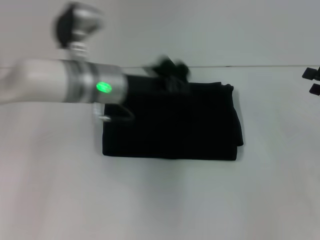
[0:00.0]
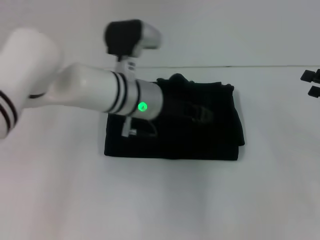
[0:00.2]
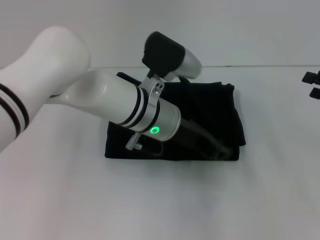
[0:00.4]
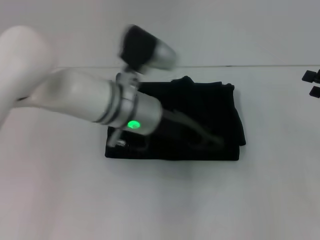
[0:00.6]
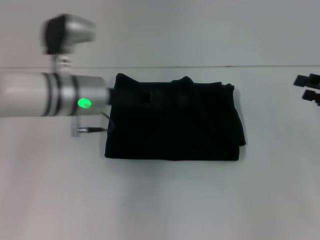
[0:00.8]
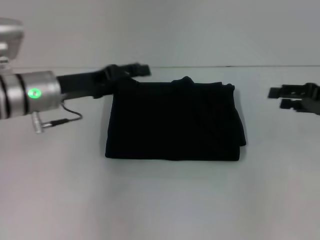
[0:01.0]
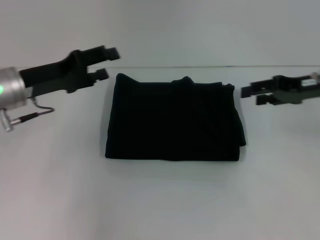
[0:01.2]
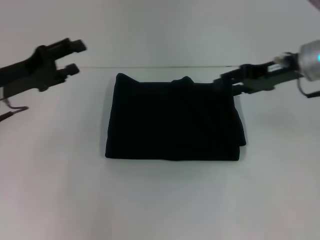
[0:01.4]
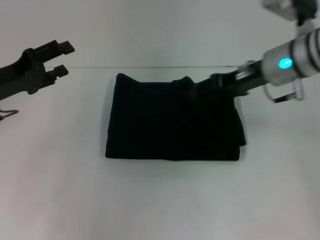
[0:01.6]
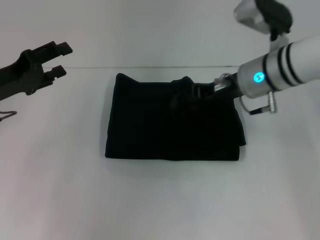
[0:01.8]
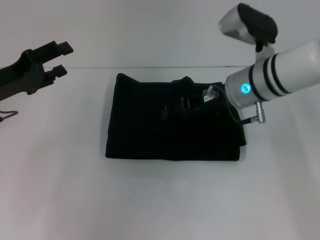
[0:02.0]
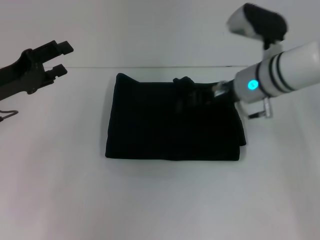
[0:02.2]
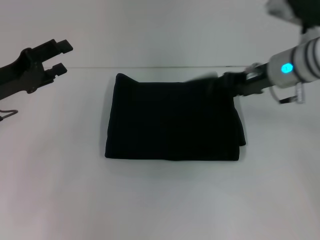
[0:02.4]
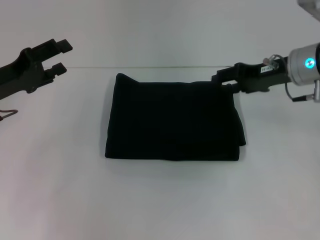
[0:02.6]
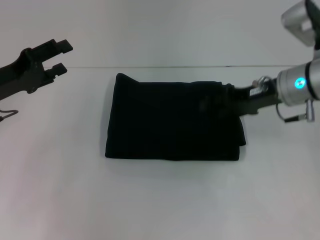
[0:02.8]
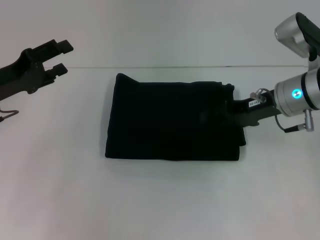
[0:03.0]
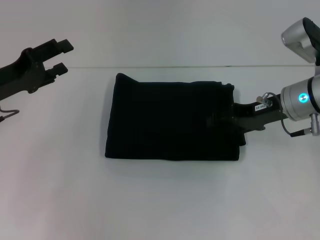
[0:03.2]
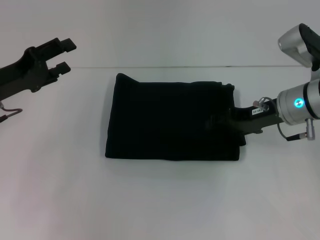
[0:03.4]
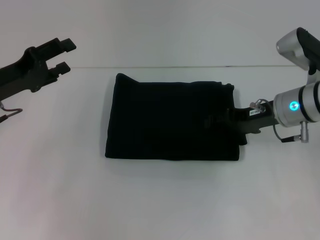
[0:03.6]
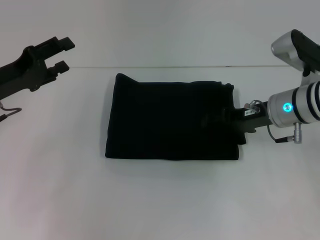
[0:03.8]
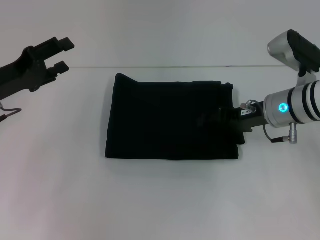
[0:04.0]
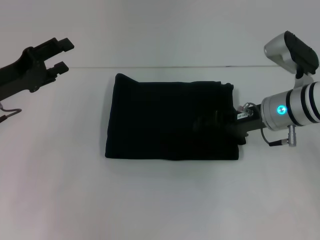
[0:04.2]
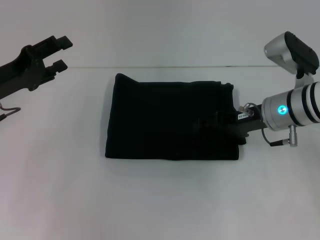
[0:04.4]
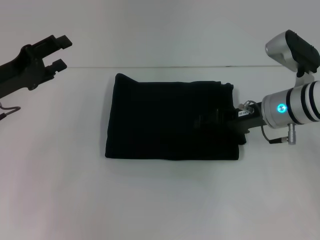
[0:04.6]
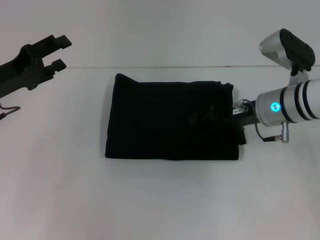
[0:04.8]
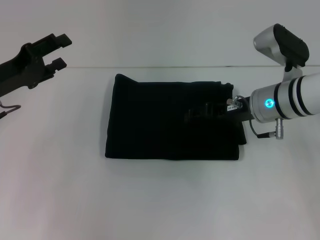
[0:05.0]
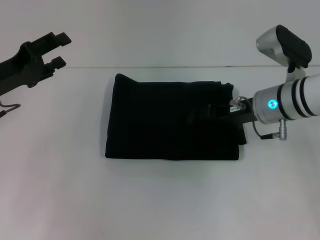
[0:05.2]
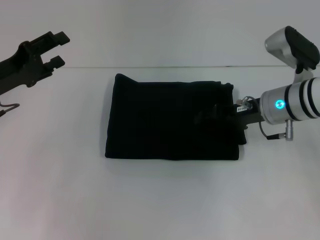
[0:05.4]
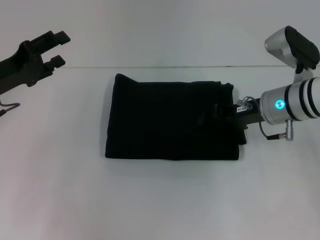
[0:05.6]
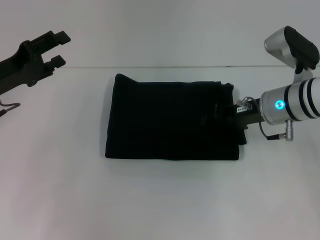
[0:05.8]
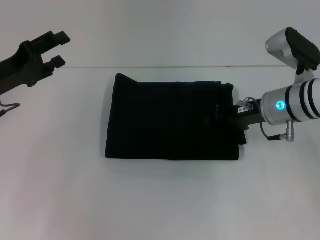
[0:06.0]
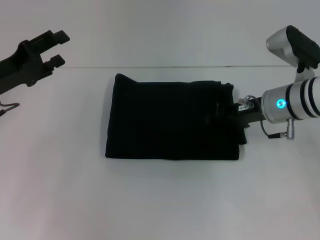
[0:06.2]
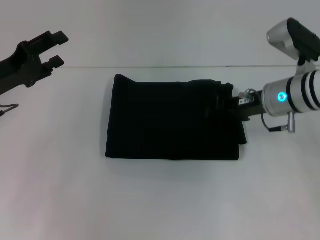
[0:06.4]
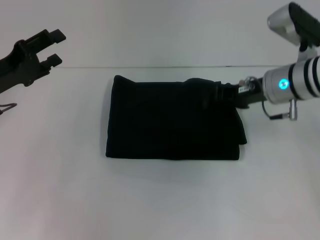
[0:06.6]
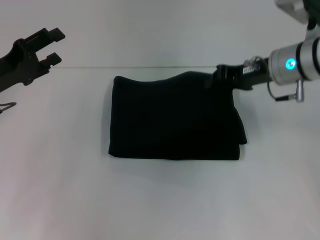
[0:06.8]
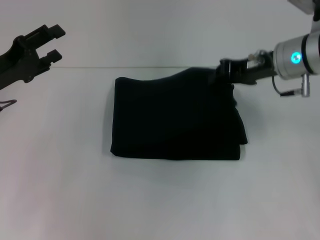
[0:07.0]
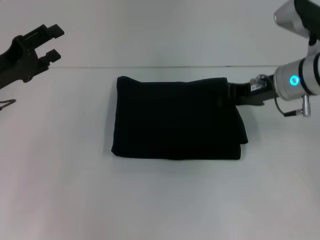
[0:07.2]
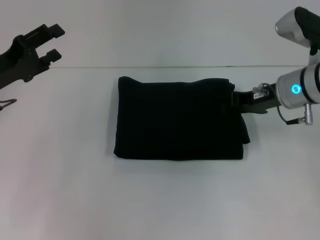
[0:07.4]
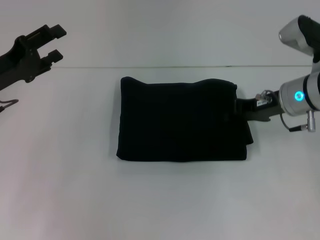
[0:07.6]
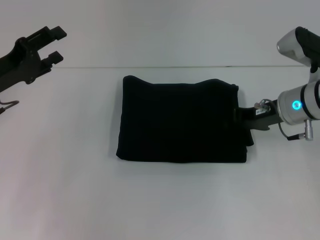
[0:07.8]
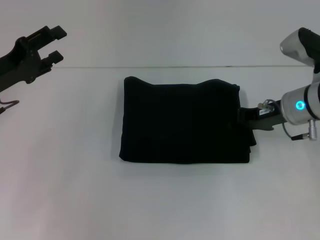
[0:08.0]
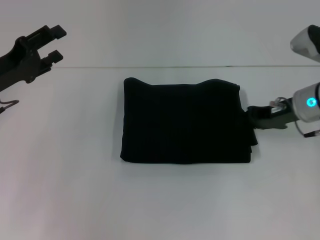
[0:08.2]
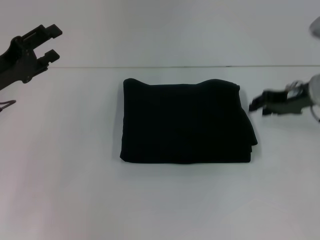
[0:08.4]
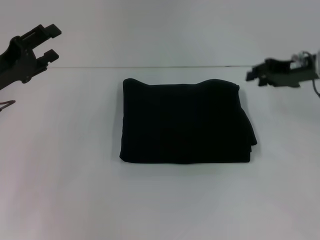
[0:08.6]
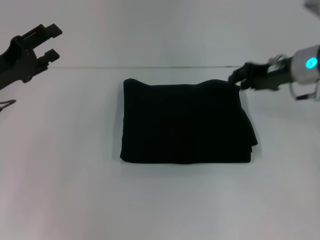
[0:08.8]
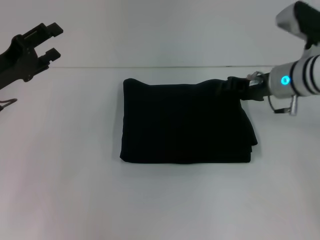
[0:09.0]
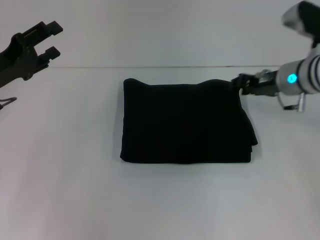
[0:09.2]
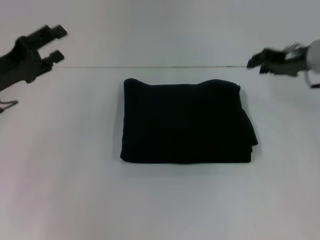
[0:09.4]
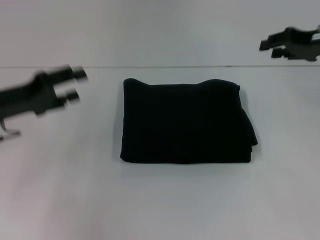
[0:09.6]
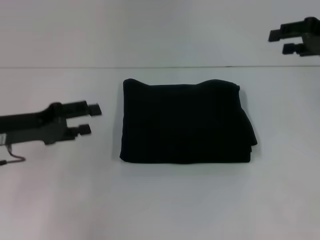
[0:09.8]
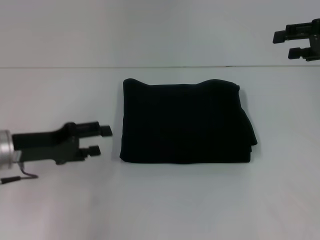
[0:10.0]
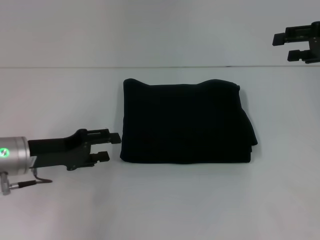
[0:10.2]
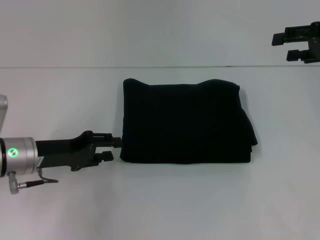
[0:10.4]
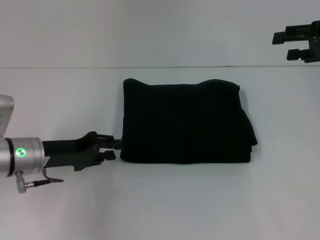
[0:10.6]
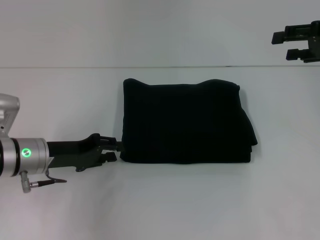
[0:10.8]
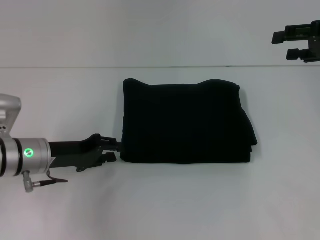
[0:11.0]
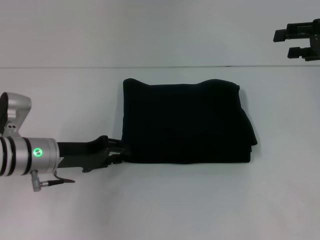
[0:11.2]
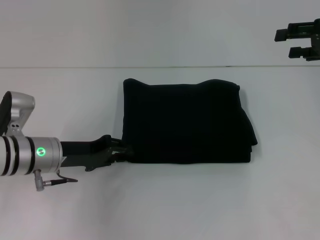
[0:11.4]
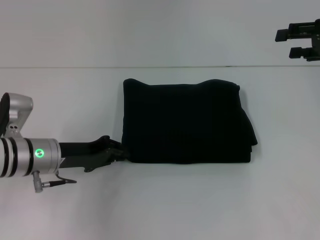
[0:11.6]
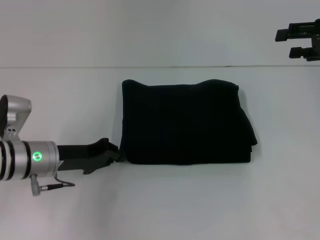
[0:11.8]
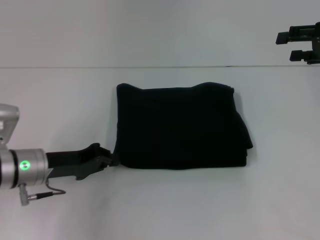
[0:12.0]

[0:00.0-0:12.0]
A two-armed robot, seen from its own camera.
0:00.0 to 0:01.6: The left gripper goes approximately 20 cm to the left, and opens up; the right gripper goes about 20 cm to the left and forward.
0:01.6 to 0:03.0: The right gripper moves approximately 5 cm to the left and comes back.
0:03.0 to 0:04.4: The grippers make only small movements.
0:04.4 to 0:06.0: The right gripper closes up.
0:07.6 to 0:09.0: The right gripper opens up.
0:09.0 to 0:10.4: The left gripper heads downward and to the right, covering roughly 10 cm; the right gripper travels to the right and upward by about 15 cm, and opens its fingers.
0:10.4 to 0:12.0: The left gripper closes.

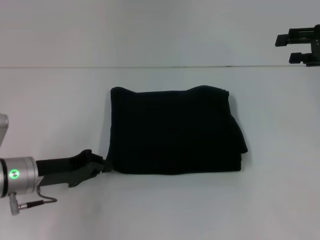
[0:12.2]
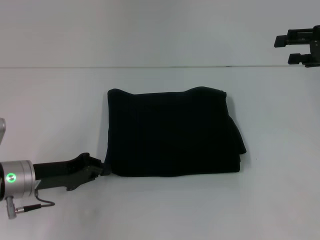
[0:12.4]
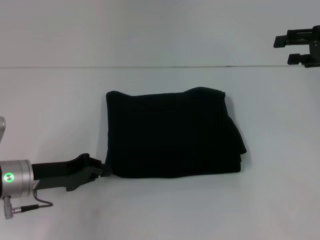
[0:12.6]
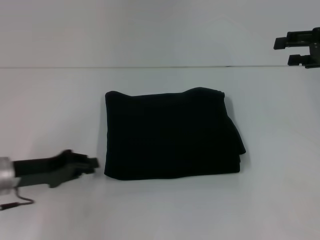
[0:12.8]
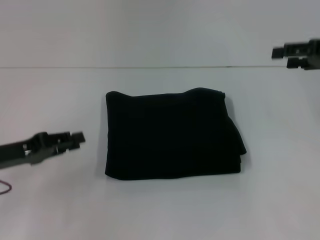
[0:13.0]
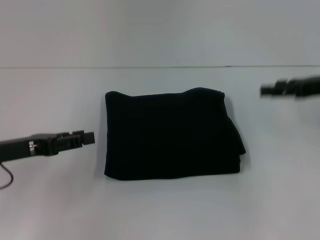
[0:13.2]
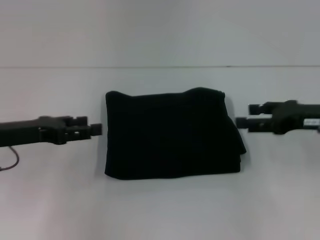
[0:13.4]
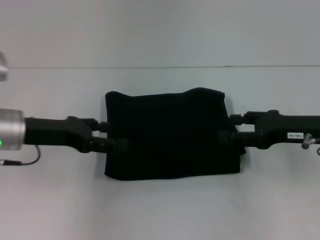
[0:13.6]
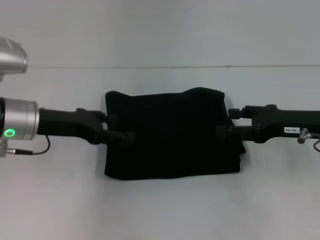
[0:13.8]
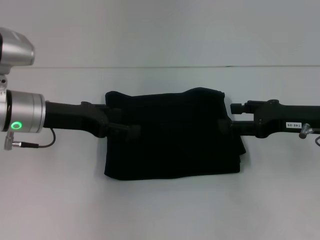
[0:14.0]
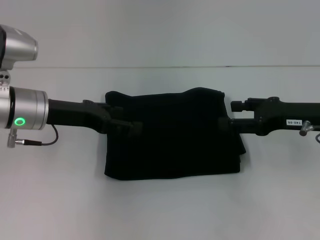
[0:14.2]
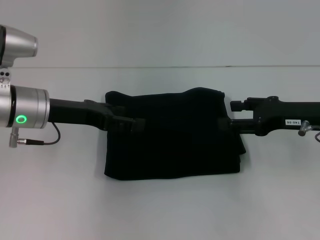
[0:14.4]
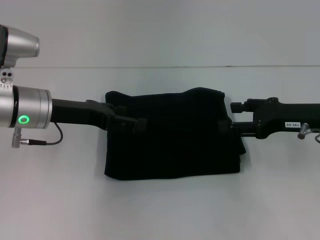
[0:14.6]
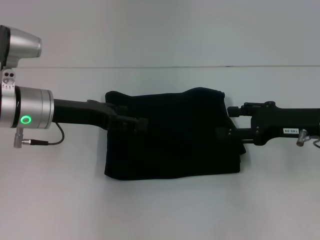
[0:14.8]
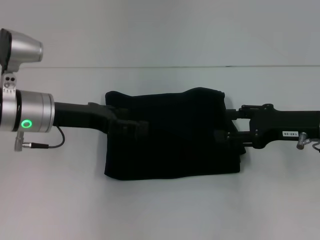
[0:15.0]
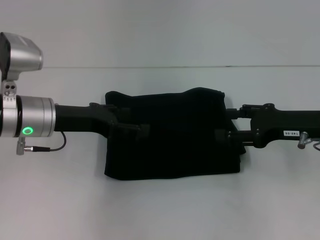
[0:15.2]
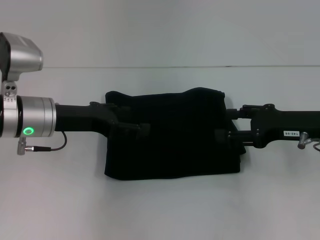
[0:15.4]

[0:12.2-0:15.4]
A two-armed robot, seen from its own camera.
0:12.2 to 0:13.8: The right gripper goes some 15 cm downward, to the left and backward. The left gripper shifts roughly 10 cm upward, and opens.
0:13.8 to 0:15.4: The grippers stay close to where they were, moving slightly.

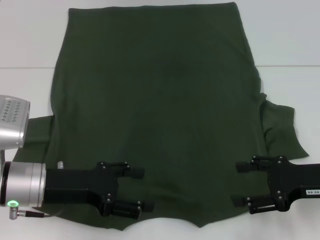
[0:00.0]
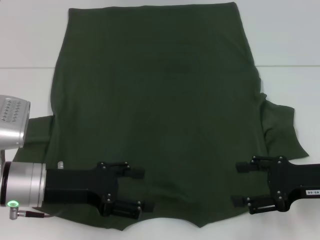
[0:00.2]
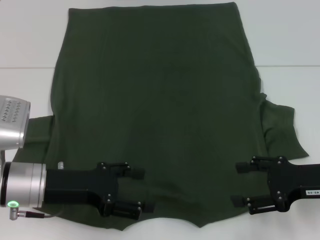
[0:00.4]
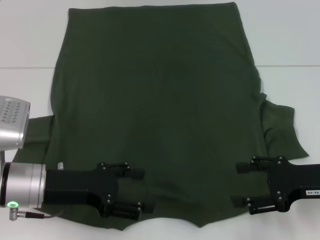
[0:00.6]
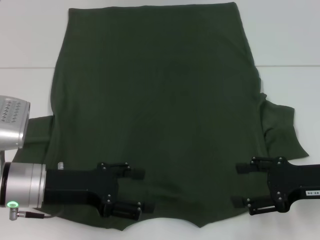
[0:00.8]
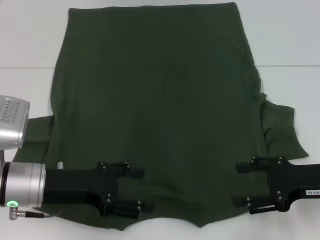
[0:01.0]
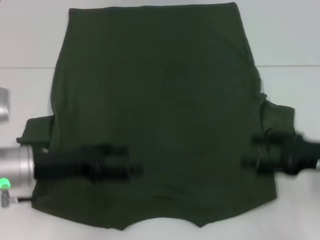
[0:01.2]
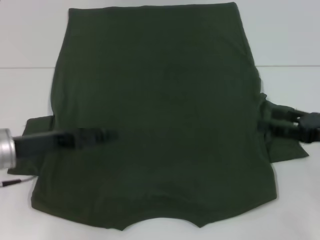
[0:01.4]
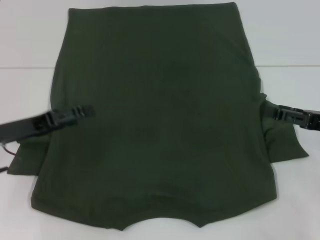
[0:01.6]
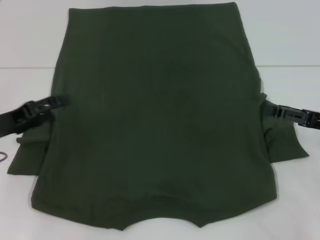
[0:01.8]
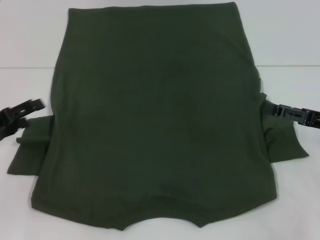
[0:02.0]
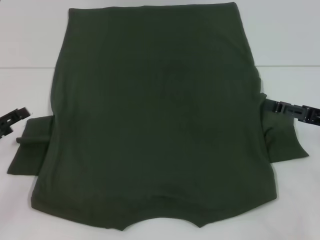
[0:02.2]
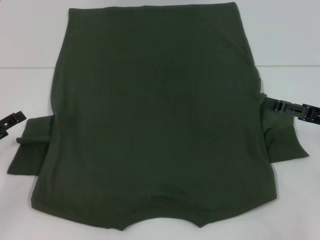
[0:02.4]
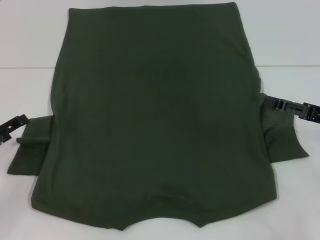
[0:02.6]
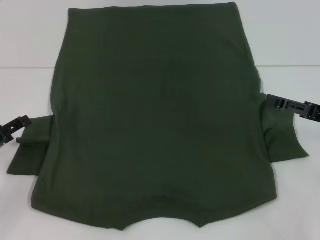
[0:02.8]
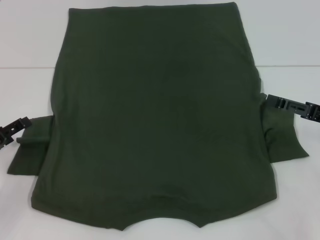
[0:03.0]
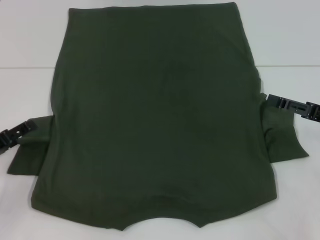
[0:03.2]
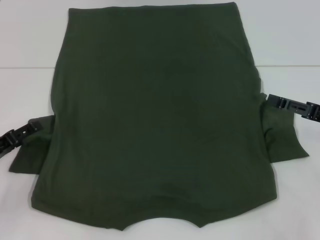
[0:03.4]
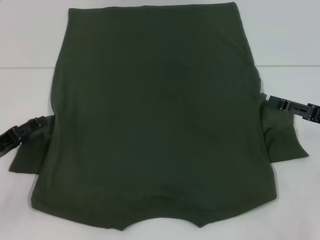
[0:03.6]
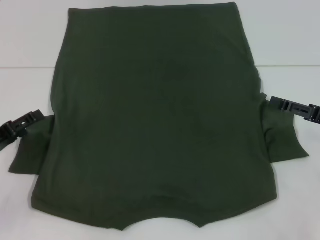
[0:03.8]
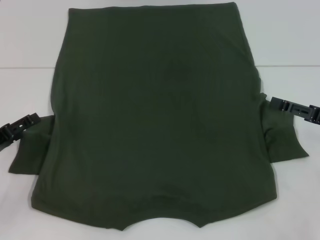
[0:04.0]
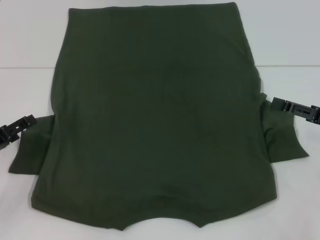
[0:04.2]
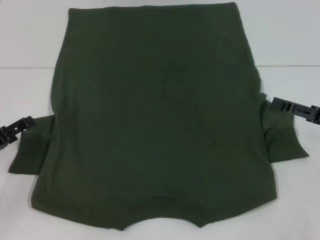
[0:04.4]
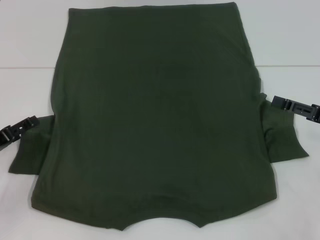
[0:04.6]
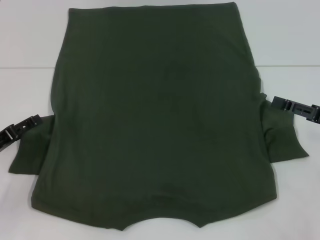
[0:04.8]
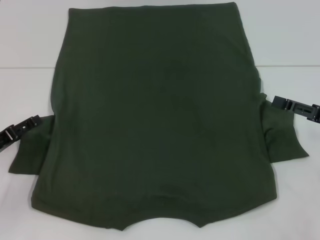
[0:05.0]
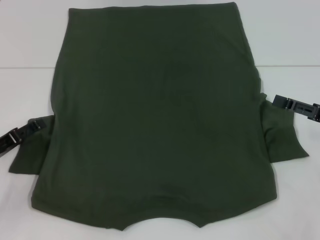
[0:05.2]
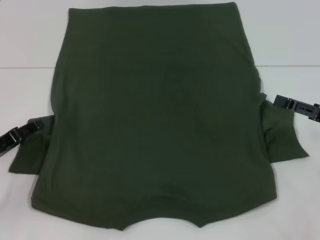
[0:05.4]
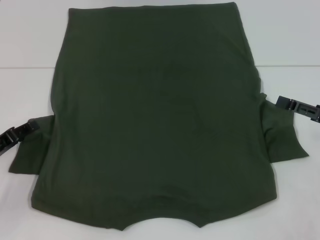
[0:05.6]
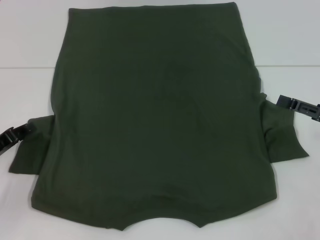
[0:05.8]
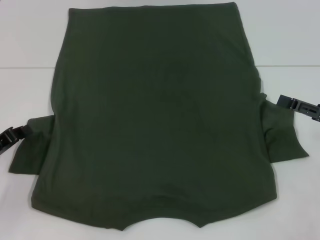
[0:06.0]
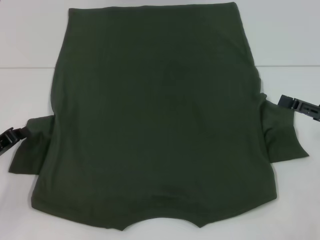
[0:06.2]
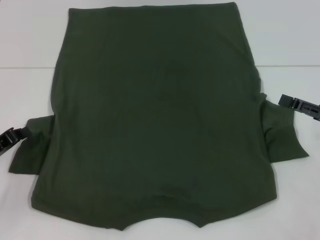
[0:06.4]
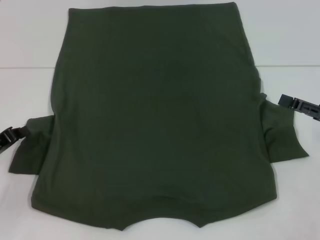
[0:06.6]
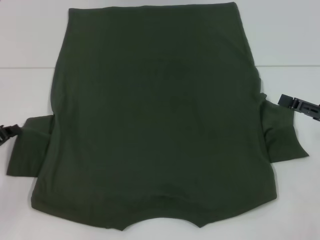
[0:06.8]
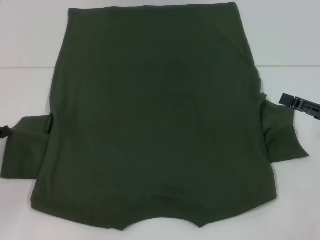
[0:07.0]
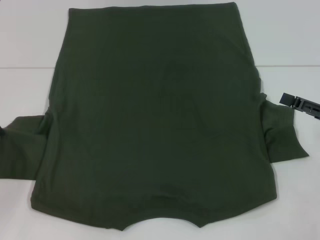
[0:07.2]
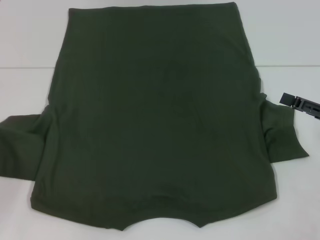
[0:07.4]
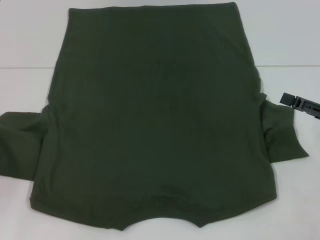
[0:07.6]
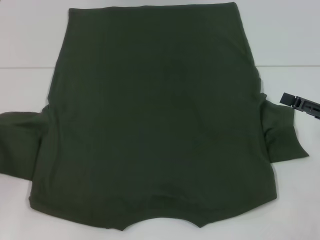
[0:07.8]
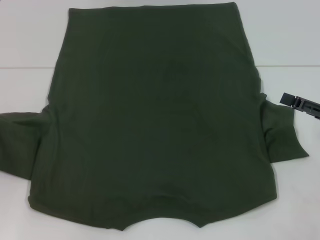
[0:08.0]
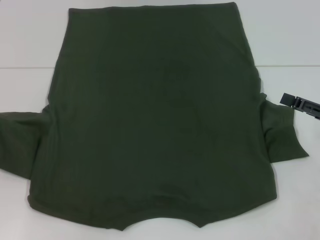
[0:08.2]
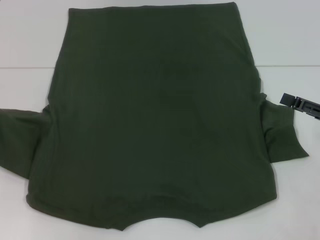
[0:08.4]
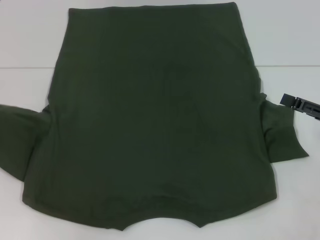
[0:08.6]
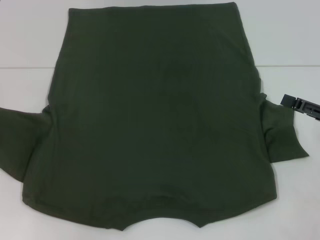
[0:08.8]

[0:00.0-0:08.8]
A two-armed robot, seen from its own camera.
0:00.0 to 0:01.4: The left gripper moves some 5 cm.
0:01.4 to 0:03.0: The left gripper heads to the left and downward, covering approximately 10 cm.
0:03.0 to 0:04.4: The grippers move only a little.
0:04.4 to 0:05.8: The left gripper closes.
0:05.8 to 0:07.4: The left gripper ends up approximately 5 cm from where it was, and closes its fingers.
0:07.4 to 0:08.8: The left gripper heads upward, covering about 5 cm.
